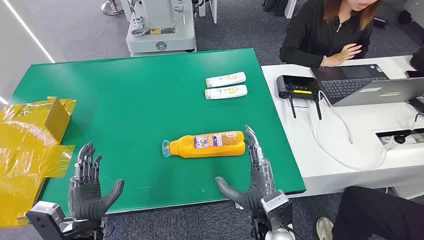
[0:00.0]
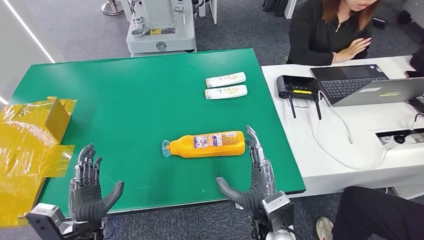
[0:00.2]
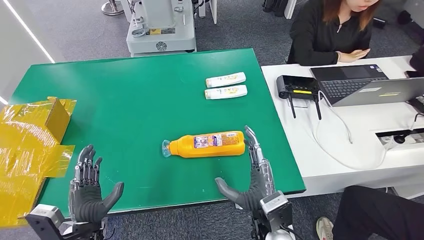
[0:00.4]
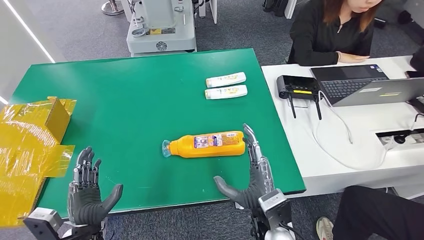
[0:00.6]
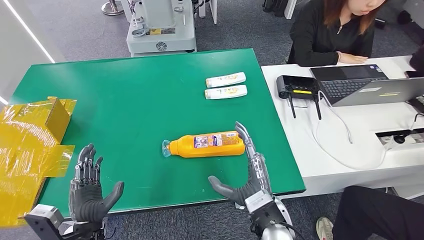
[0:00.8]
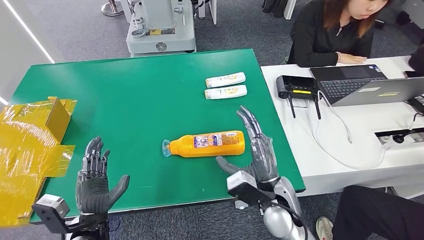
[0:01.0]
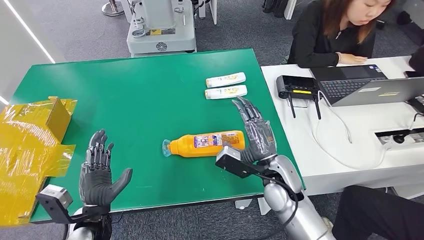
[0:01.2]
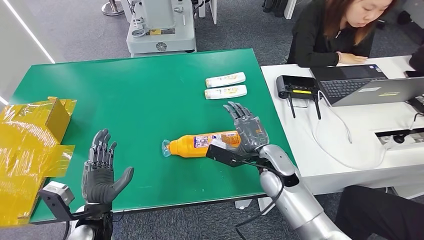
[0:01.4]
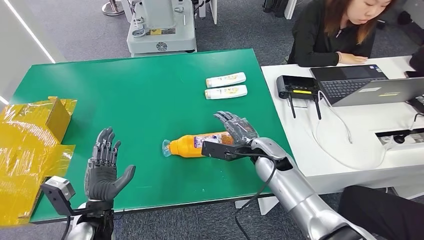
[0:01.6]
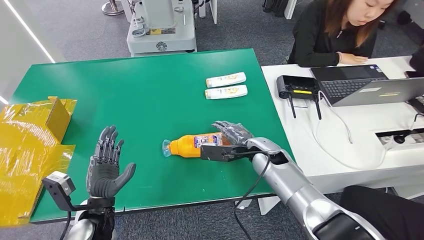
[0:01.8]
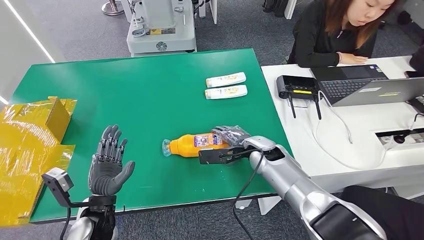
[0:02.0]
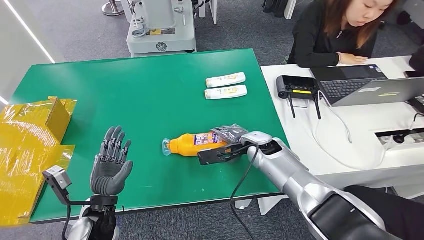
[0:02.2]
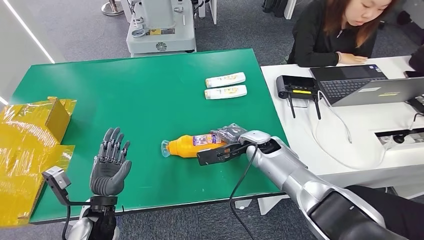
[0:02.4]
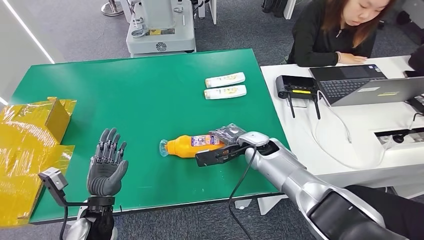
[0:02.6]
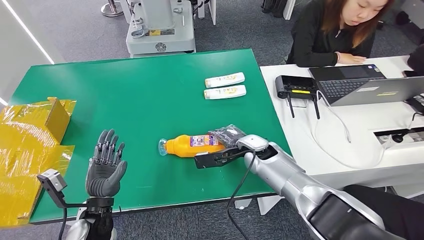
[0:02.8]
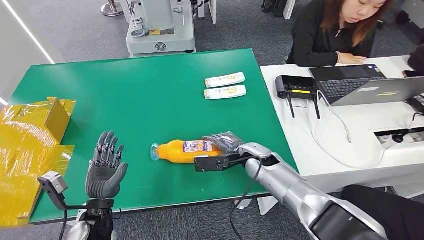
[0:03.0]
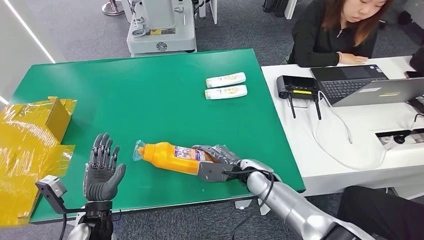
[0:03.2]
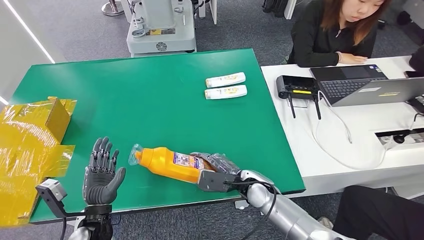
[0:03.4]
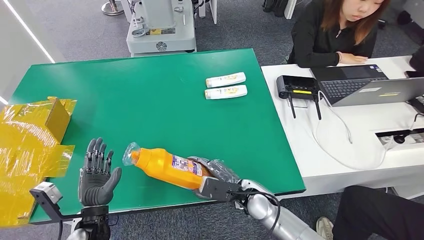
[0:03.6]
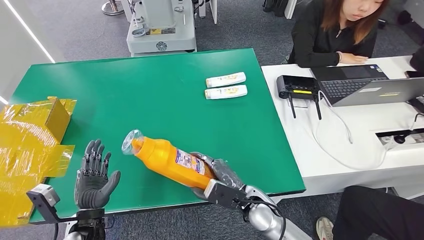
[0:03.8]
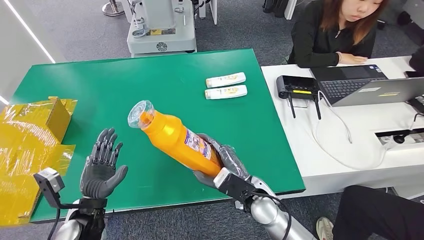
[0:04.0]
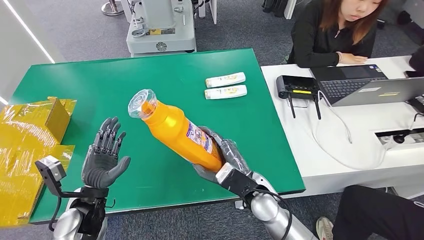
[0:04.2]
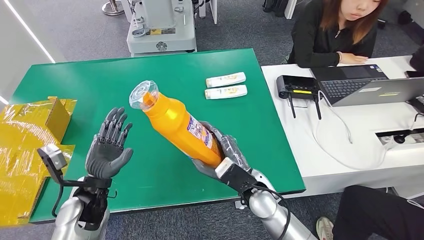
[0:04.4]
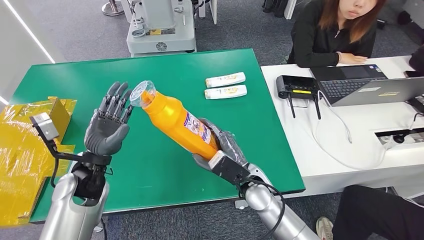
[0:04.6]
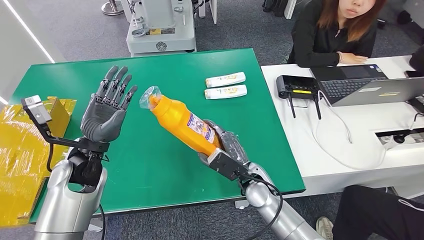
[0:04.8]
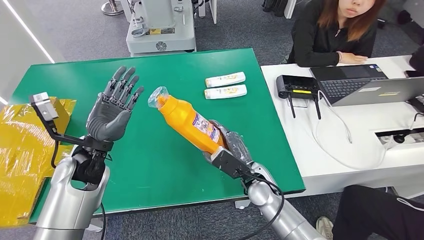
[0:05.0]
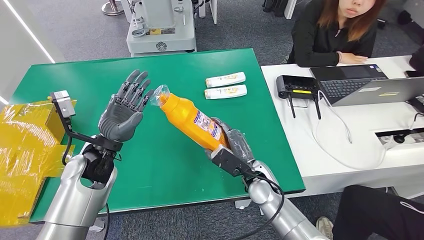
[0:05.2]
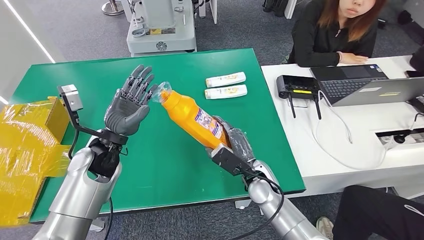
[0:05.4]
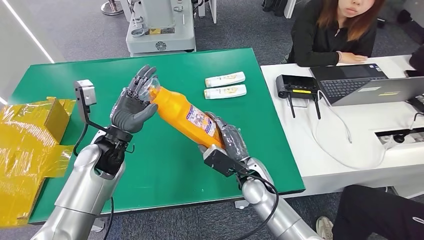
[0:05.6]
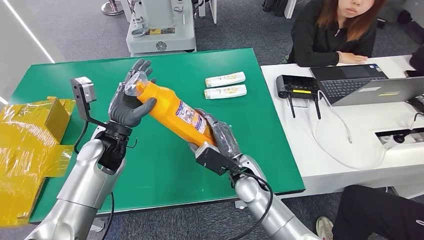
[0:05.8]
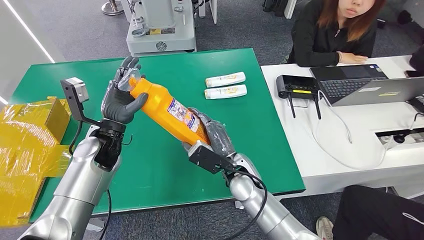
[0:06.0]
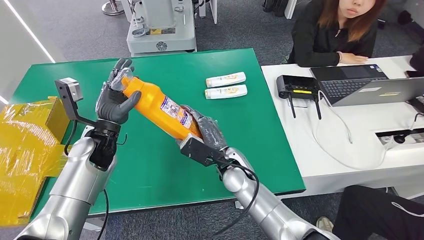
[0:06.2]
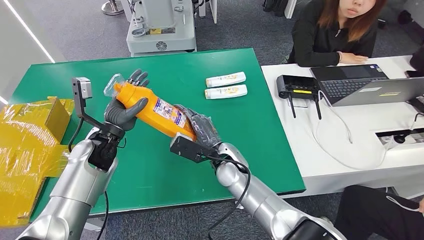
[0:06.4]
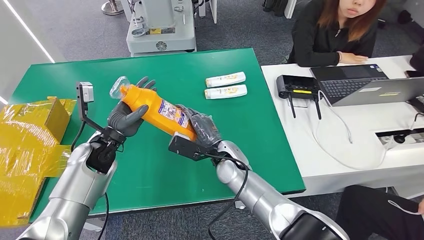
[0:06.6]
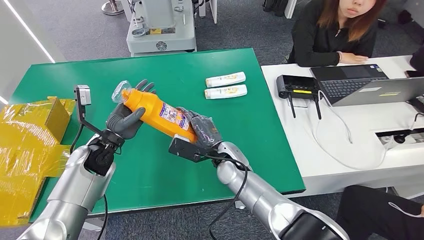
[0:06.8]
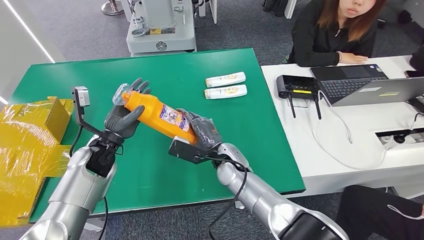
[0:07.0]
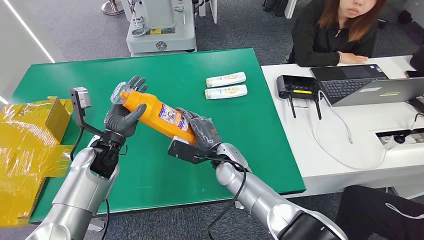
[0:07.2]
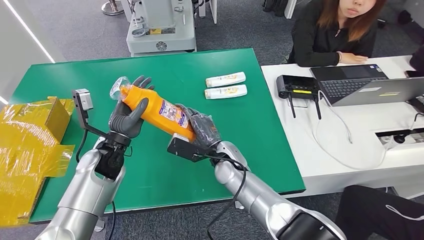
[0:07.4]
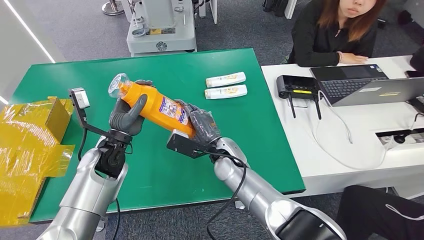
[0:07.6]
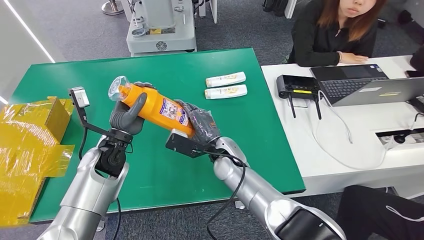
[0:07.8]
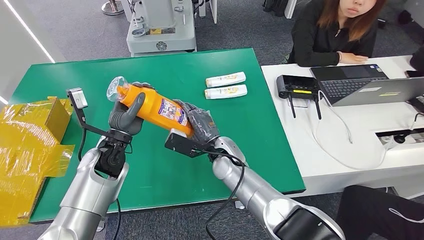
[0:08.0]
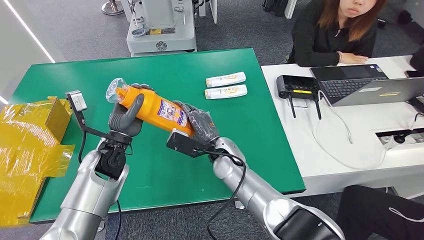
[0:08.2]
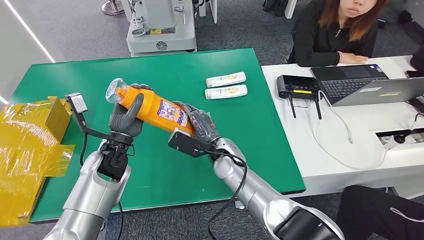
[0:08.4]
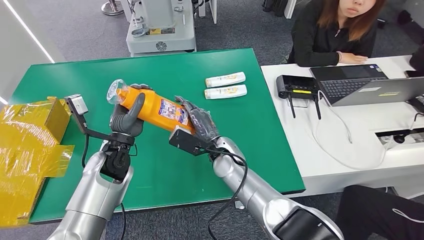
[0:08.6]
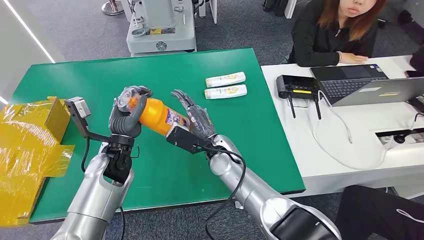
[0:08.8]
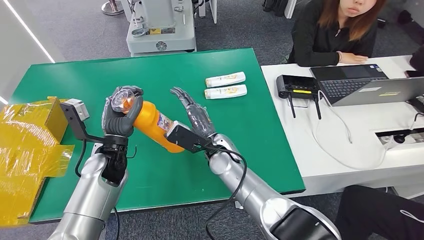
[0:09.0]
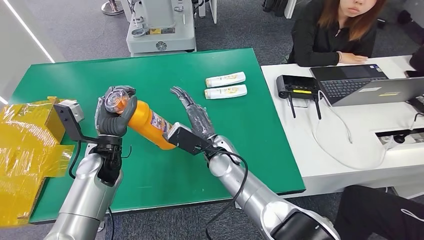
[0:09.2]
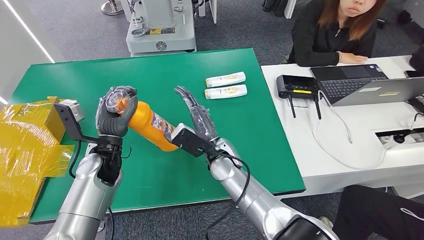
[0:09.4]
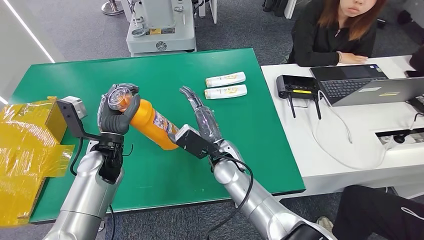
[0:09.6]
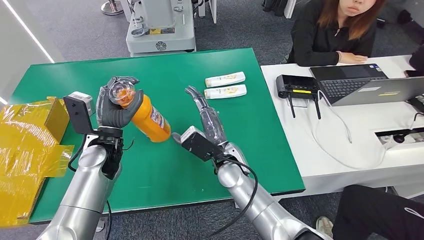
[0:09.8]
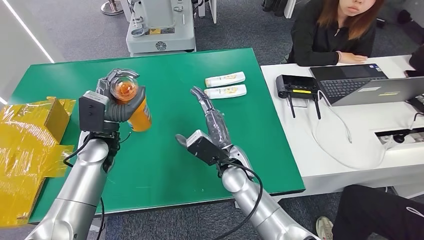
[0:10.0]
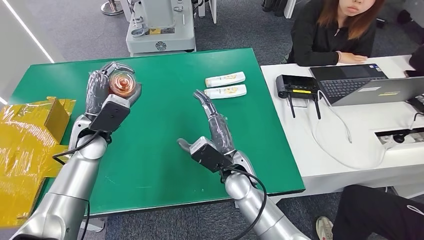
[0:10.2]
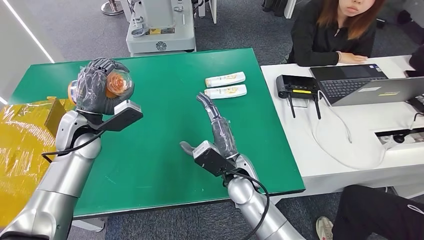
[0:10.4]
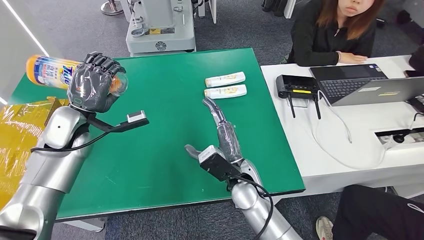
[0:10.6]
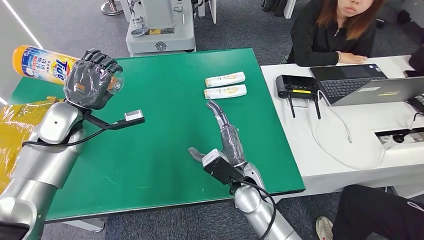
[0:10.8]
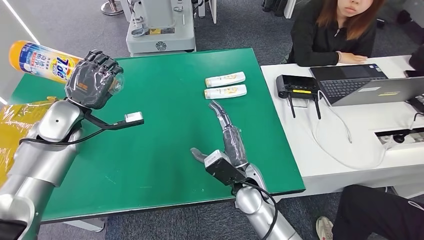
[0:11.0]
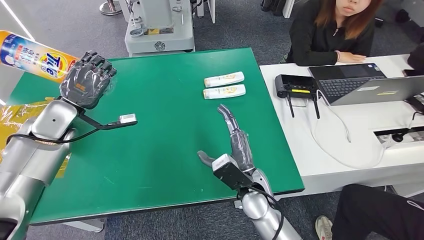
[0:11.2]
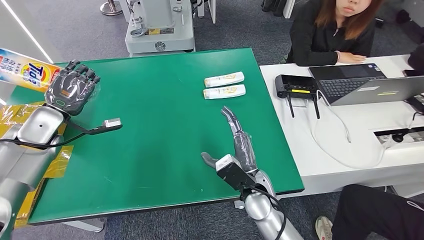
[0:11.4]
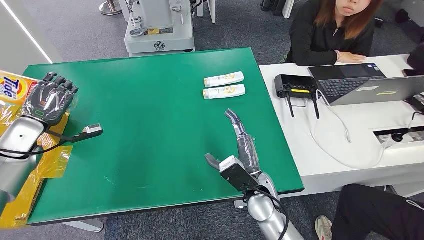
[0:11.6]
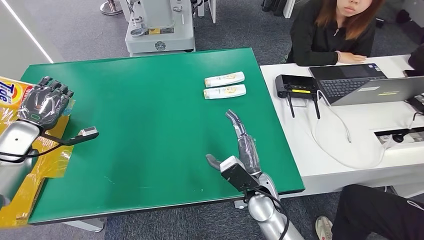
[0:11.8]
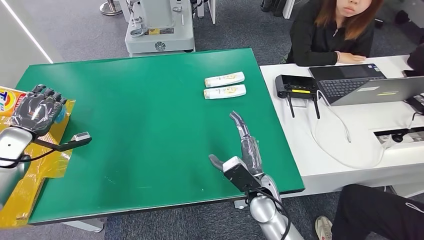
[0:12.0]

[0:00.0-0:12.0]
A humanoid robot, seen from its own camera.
Step, 0:00.0 to 0:03.6: Pick up the bottle from the table.
0:04.4 to 0:06.0: The right hand moves roughly 5 cm, while the left hand heads forward and upward, covering approximately 10 cm.
0:06.0 to 0:07.6: The right hand shifts by roughly 5 cm.
0:09.0 to 0:10.4: The right hand shifts roughly 5 cm backward, while the left hand heads upward and to the left, covering roughly 10 cm.

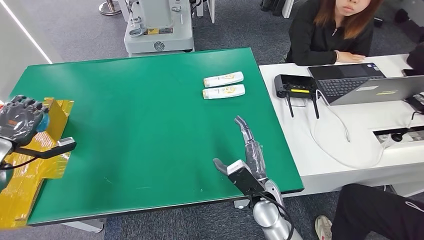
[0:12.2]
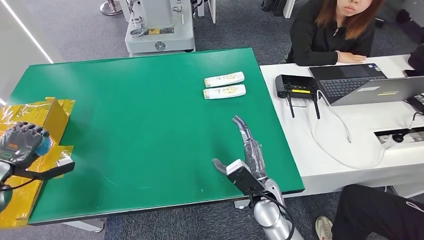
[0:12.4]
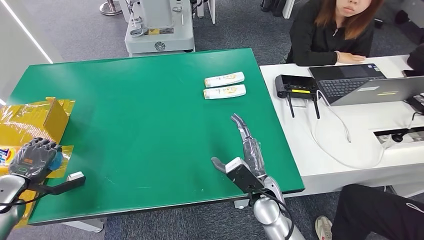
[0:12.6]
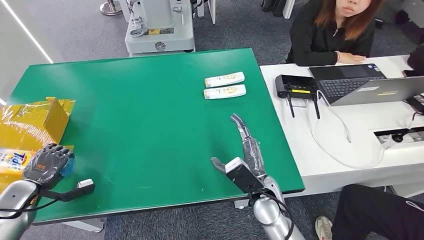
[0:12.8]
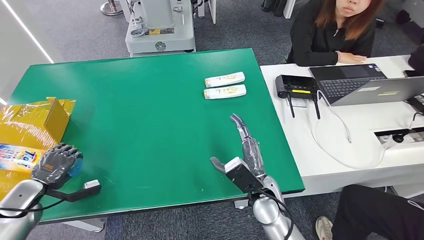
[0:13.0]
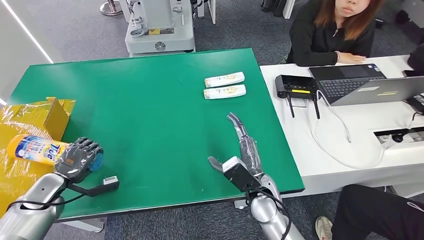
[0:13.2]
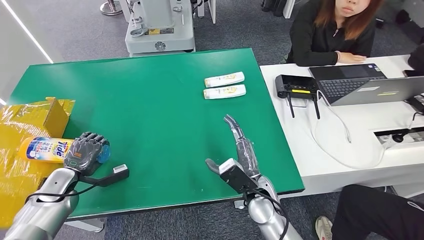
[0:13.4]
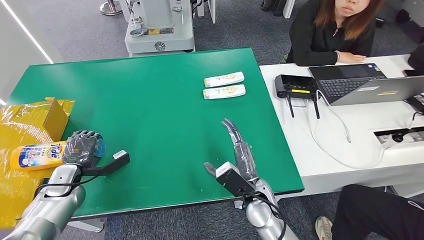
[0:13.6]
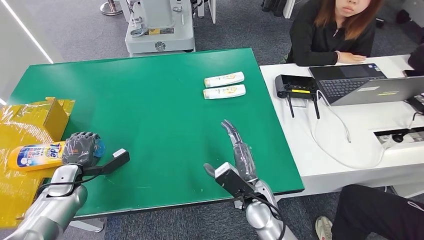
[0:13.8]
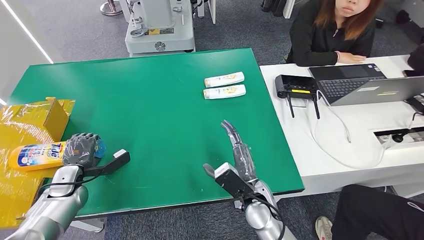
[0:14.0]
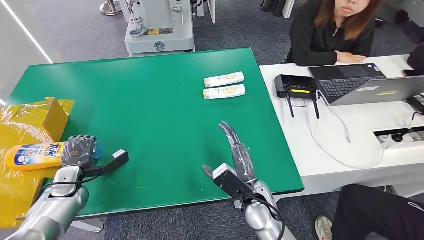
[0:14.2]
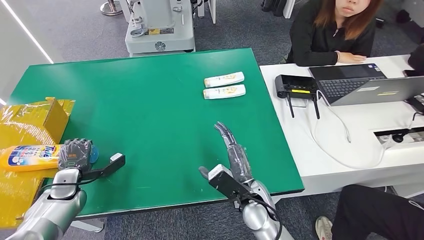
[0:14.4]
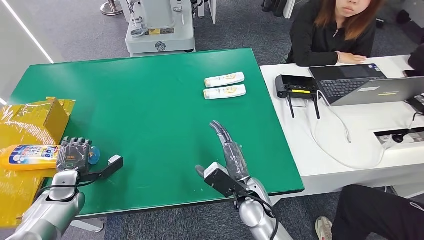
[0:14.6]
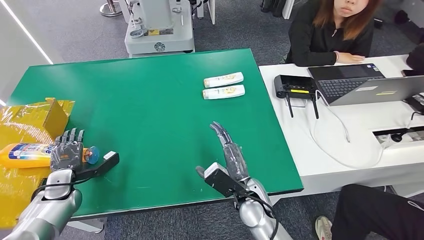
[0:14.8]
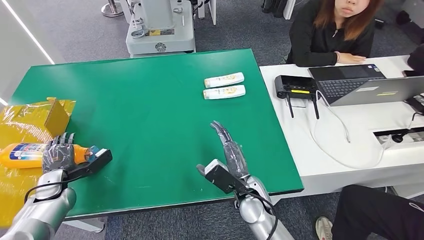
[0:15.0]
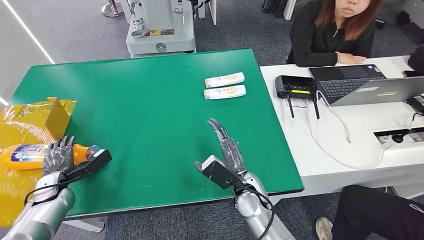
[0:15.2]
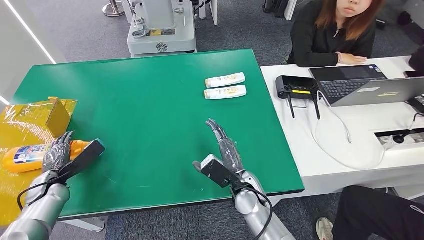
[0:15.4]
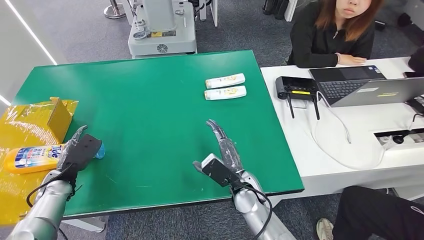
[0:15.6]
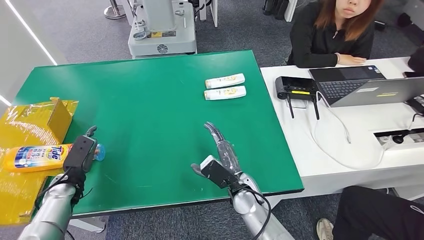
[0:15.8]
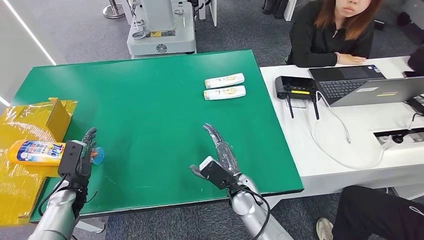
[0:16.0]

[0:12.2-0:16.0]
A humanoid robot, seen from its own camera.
Step, 0:12.2 to 0:16.0: Turn the bottle to the front side.
0:12.2 to 0:13.4: The left hand goes roughly 15 cm to the right and downward.

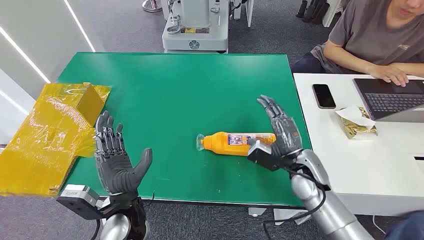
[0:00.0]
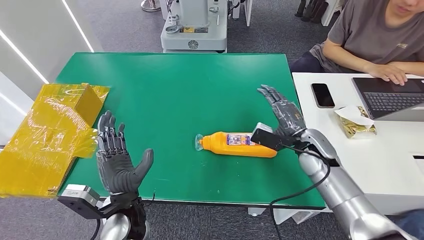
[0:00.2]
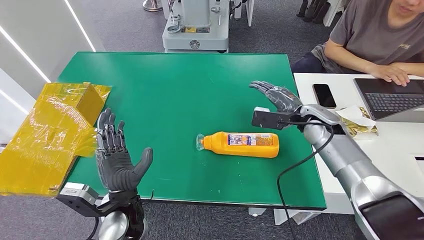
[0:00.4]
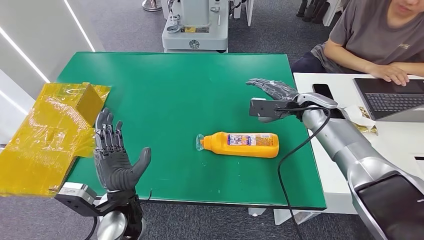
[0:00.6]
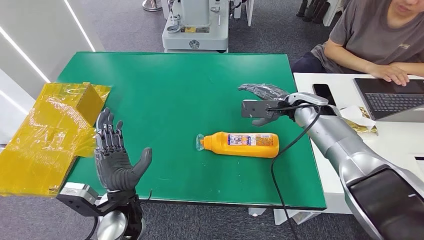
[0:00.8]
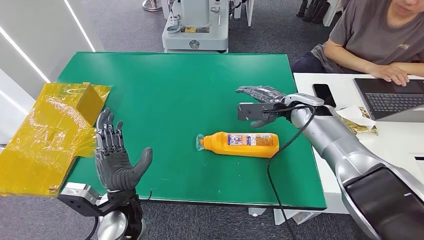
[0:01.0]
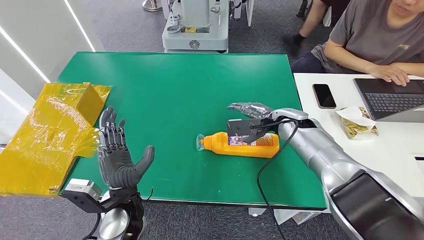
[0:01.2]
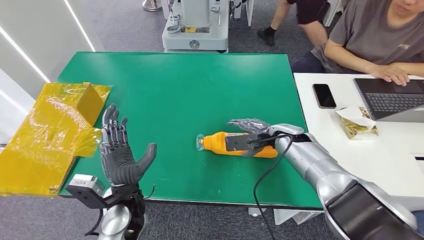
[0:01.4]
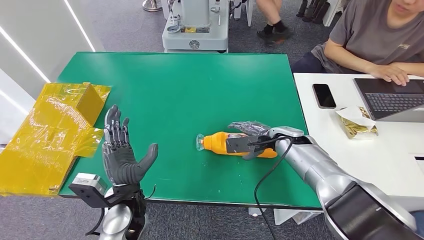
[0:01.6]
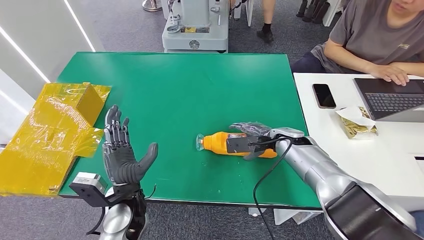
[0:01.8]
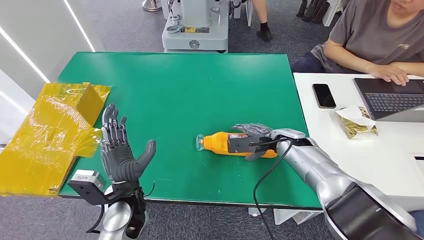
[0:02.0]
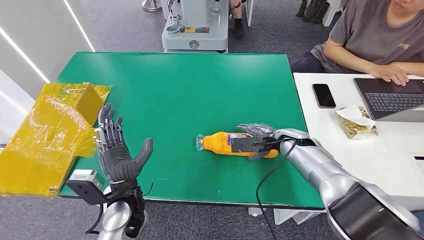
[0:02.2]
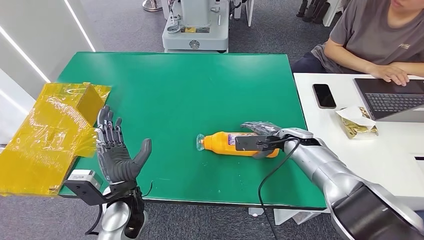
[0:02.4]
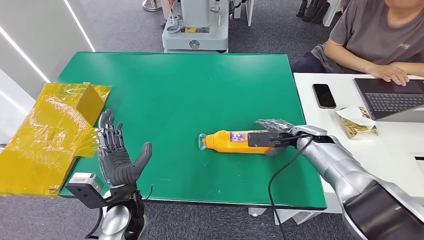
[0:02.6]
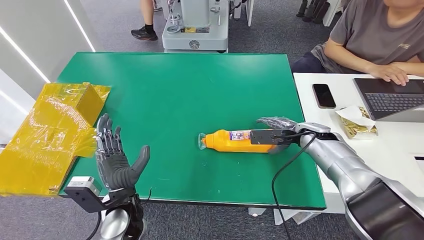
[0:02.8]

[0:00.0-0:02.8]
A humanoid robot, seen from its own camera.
0:01.4 to 0:02.8: The right hand shifts approximately 10 cm to the right.
